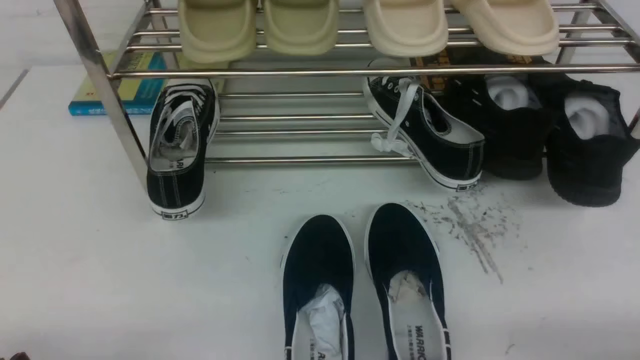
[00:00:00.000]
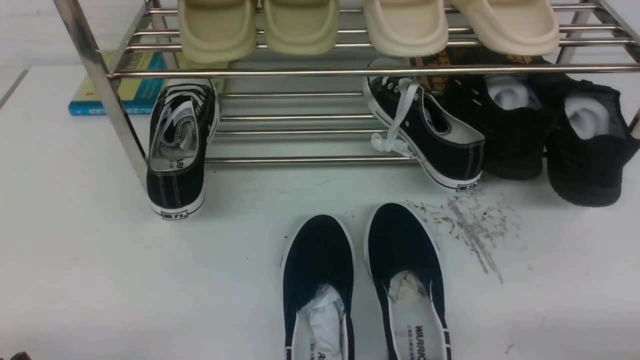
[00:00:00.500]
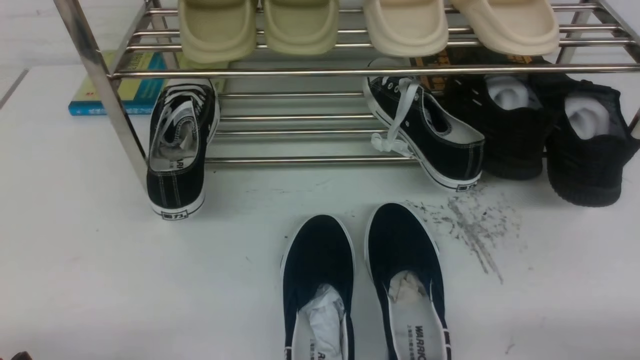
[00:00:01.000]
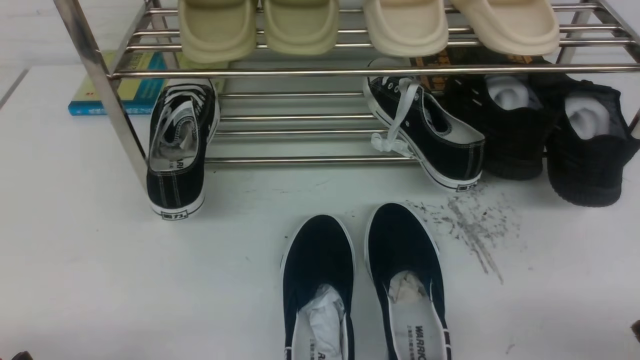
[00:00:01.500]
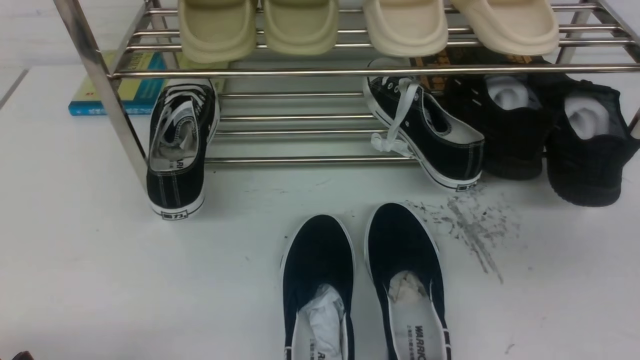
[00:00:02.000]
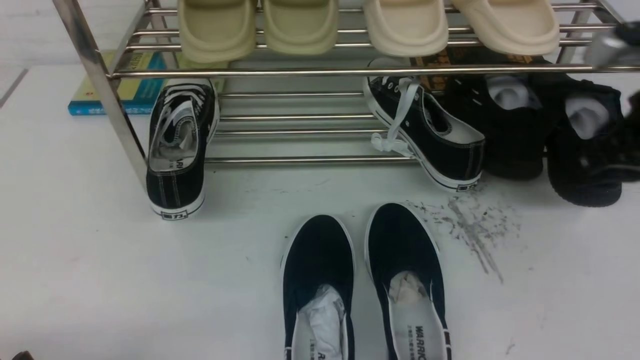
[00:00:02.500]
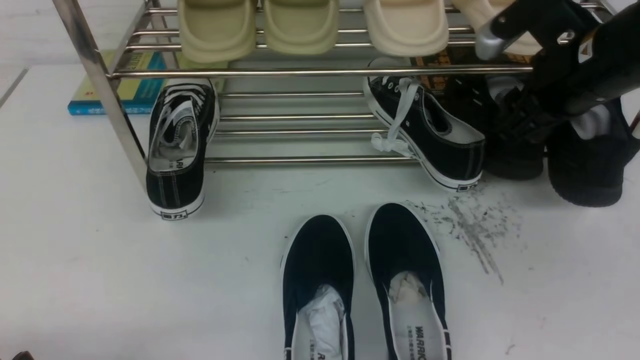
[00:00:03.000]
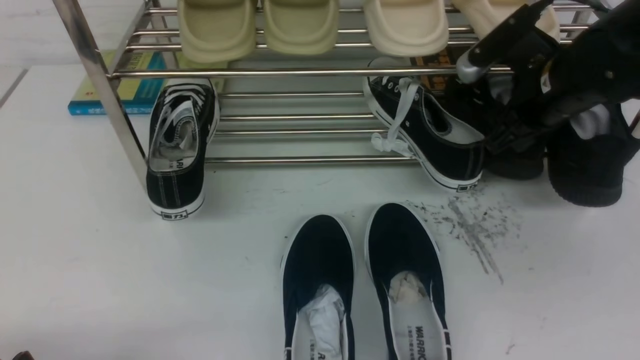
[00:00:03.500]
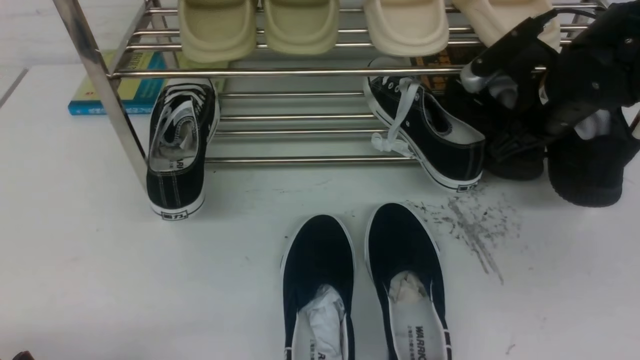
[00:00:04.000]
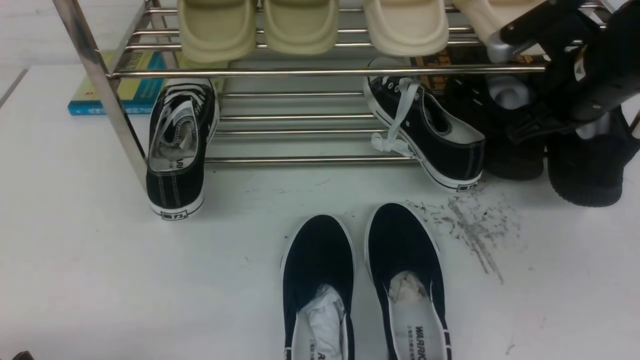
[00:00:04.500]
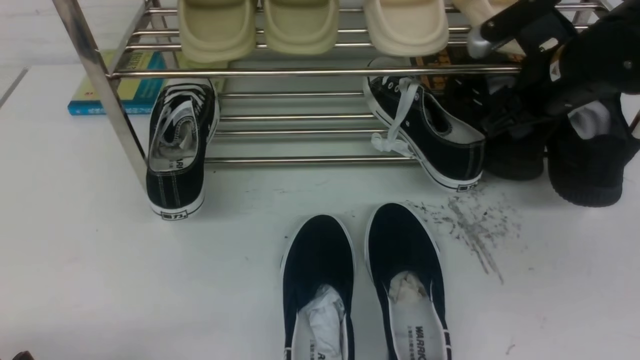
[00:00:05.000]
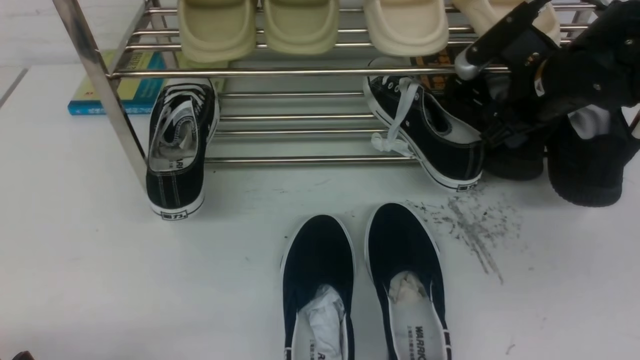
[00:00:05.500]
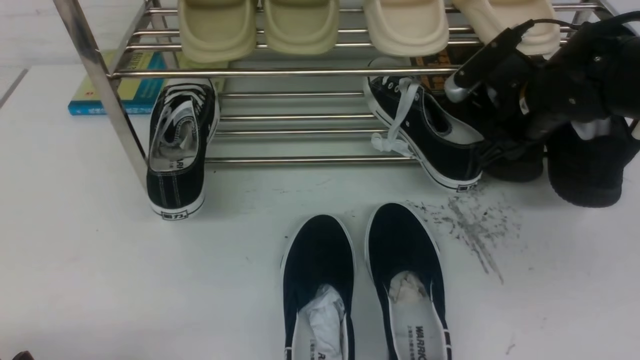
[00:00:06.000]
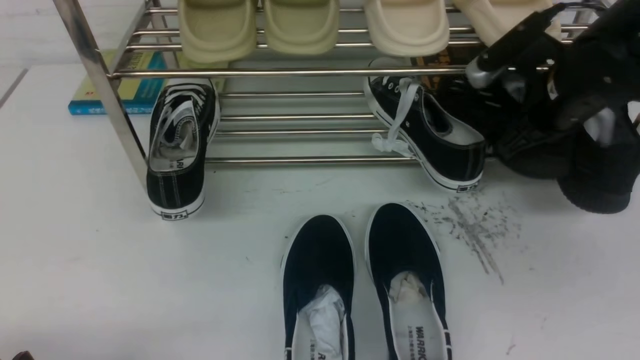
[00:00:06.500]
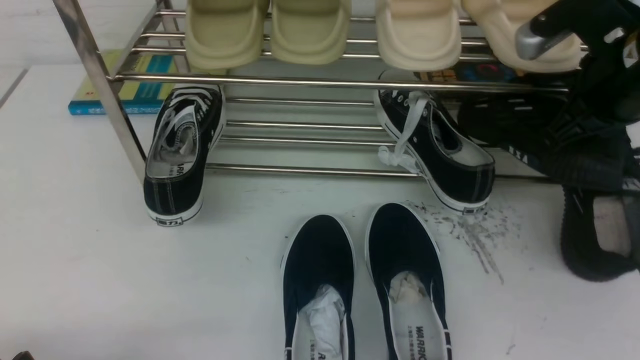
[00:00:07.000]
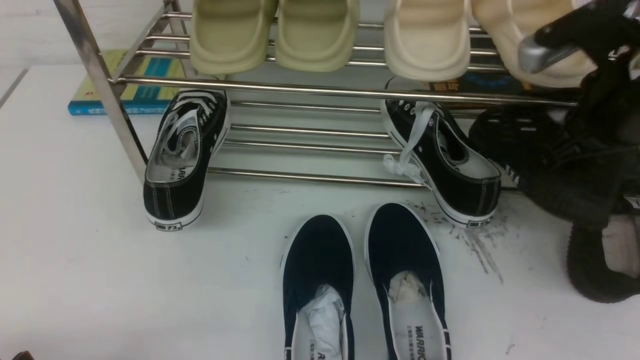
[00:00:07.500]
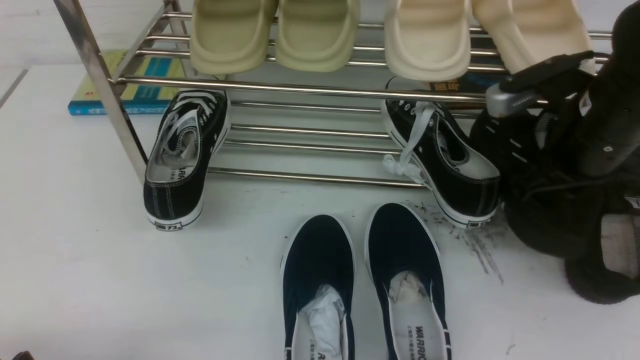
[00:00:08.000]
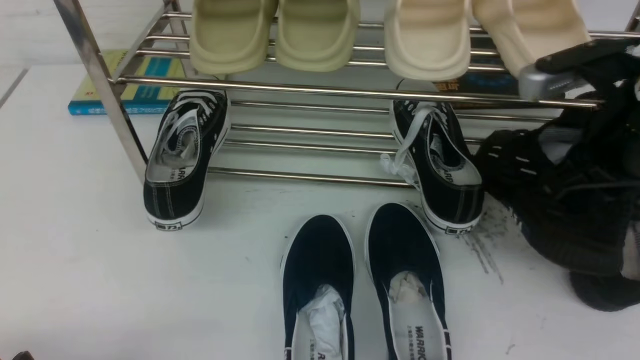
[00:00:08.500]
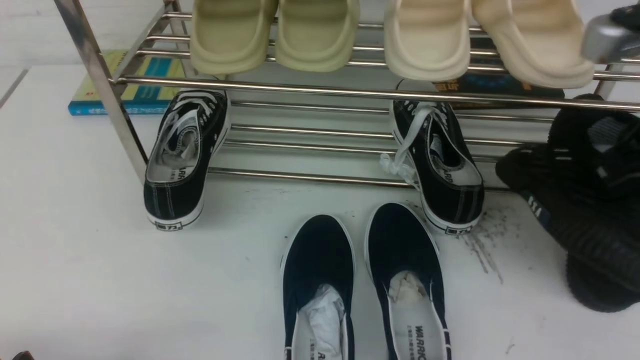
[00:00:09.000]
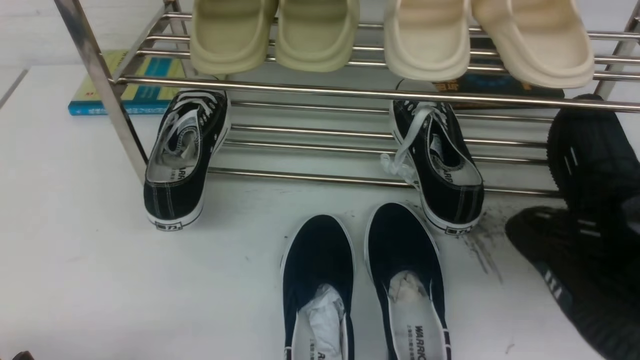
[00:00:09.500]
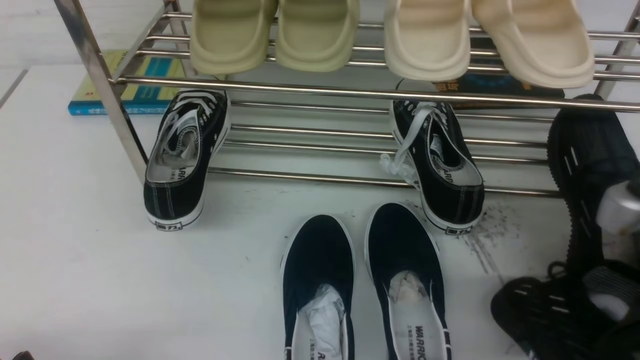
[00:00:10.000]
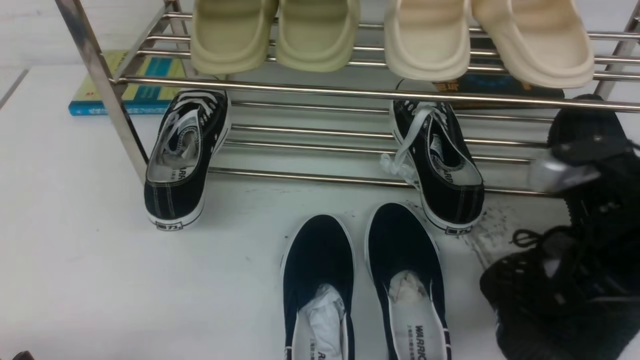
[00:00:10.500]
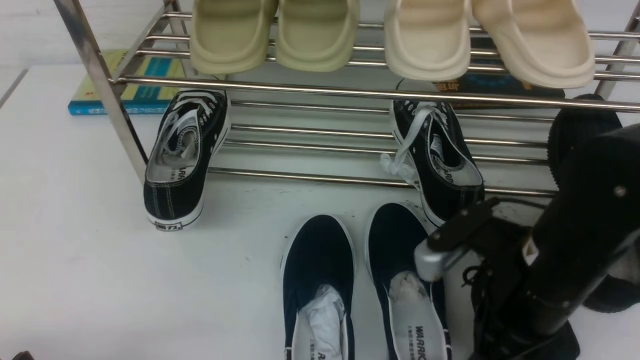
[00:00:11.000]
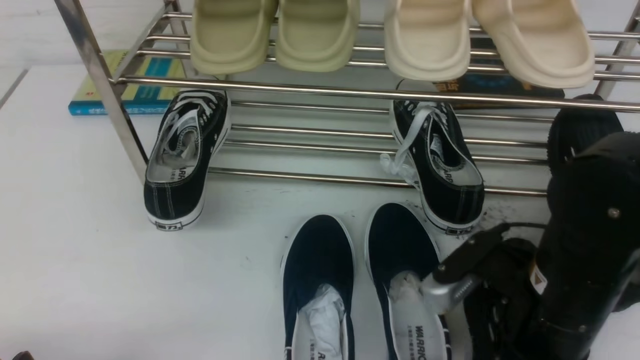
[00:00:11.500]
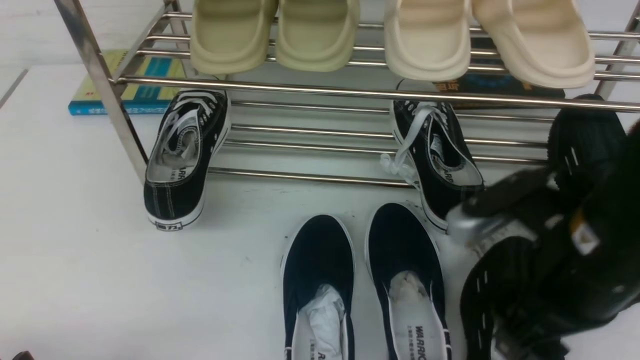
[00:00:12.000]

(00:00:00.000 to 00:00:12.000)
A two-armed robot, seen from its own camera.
Step, 00:00:00.000 - 00:00:06.500: use the right arm to clamp a shoe on the right side of the shoe rack.
00:00:00.000 - 00:00:02.000: The right gripper travels upward by approximately 15 cm, and closes.
00:00:02.000 - 00:00:04.000: The right gripper heads forward, covering about 25 cm, and opens and closes again.
00:00:04.000 - 00:00:06.000: The right gripper opens, then closes once more.
00:00:06.000 - 00:00:08.000: The right gripper shifts roughly 10 cm backward, and closes its fingers.
00:00:08.000 - 00:00:10.000: The right gripper travels backward by some 15 cm.
00:00:10.000 - 00:00:12.000: The right gripper travels to the left by approximately 5 cm, and opens.

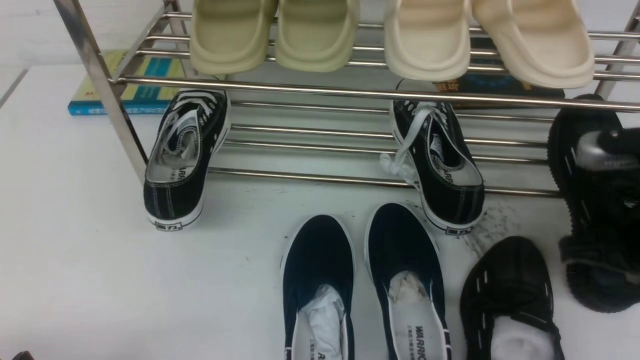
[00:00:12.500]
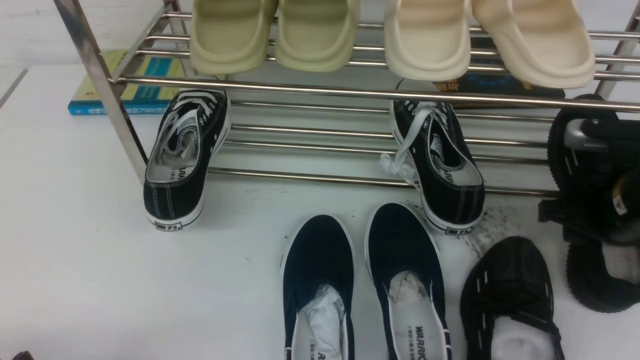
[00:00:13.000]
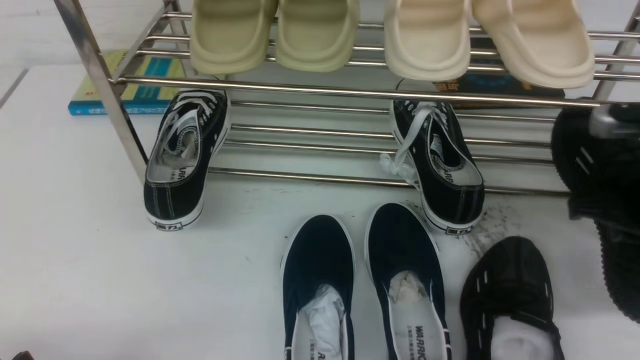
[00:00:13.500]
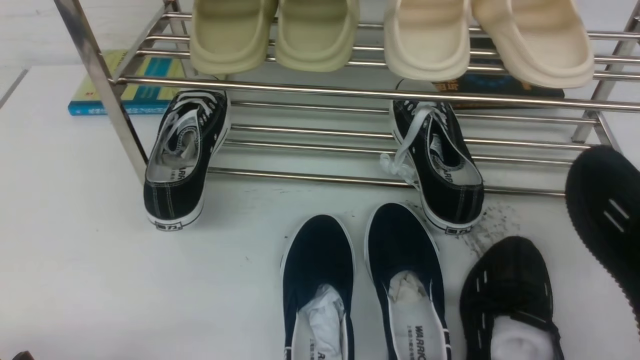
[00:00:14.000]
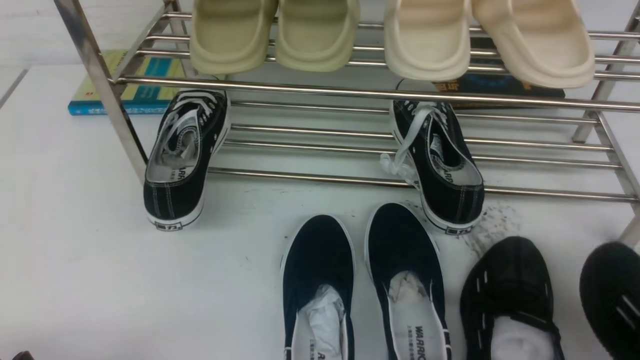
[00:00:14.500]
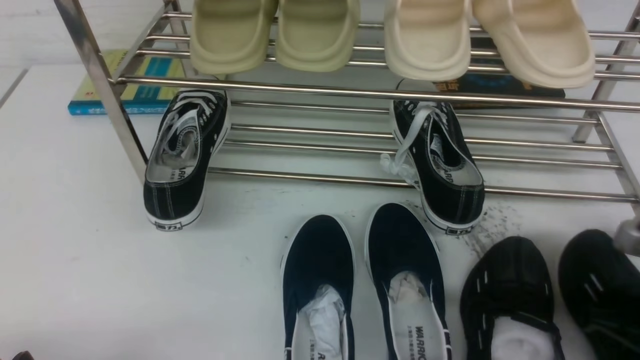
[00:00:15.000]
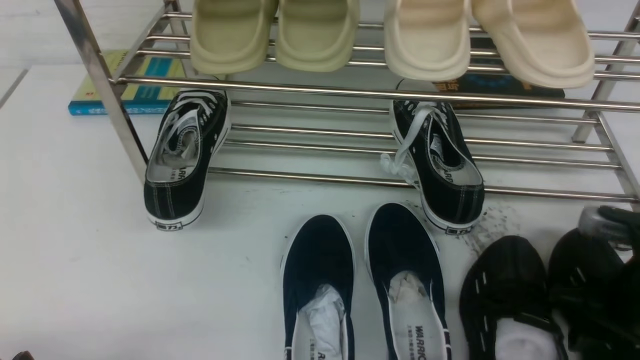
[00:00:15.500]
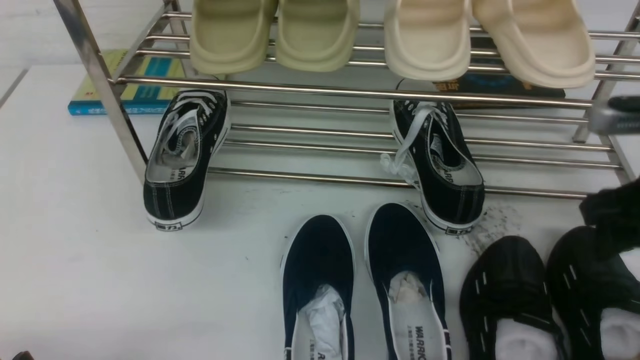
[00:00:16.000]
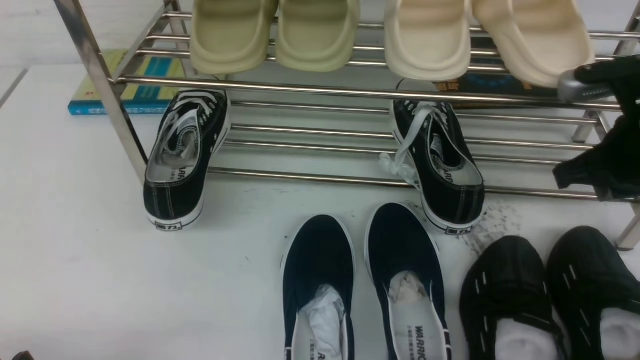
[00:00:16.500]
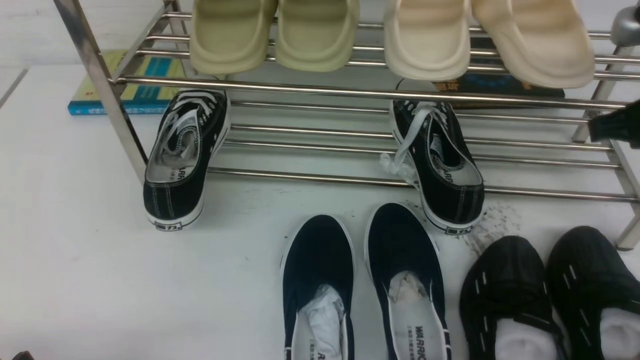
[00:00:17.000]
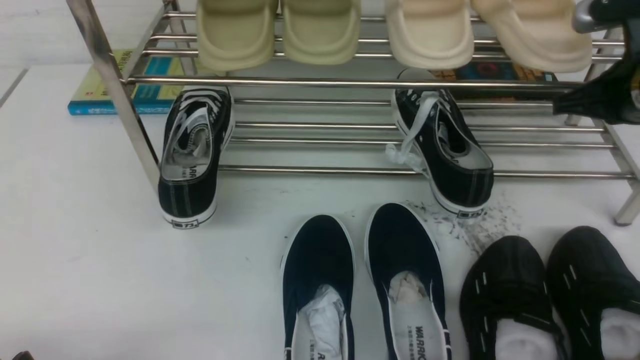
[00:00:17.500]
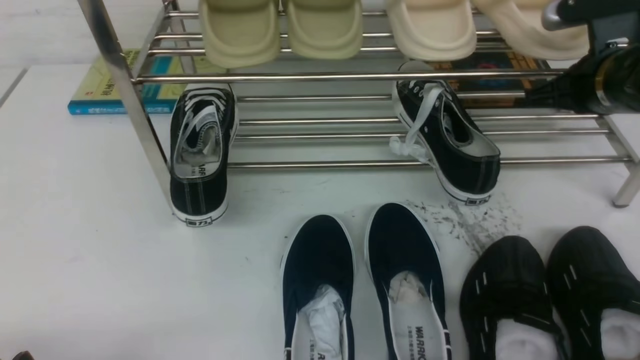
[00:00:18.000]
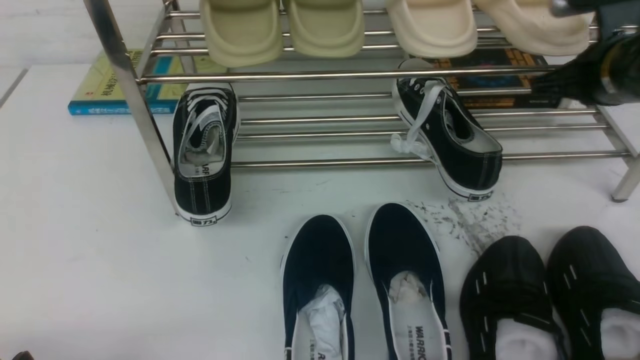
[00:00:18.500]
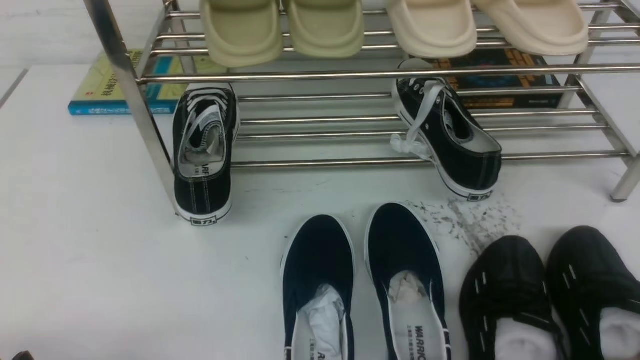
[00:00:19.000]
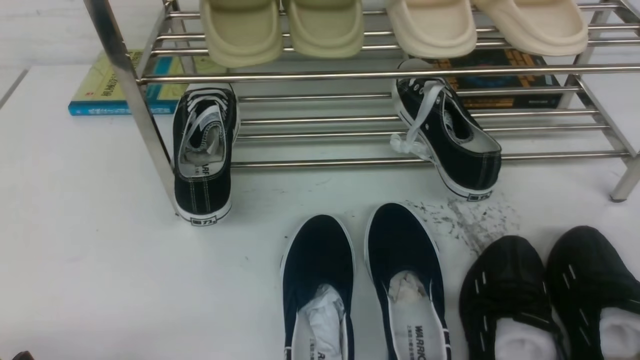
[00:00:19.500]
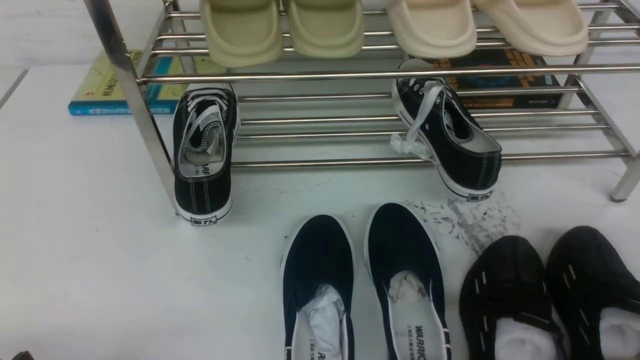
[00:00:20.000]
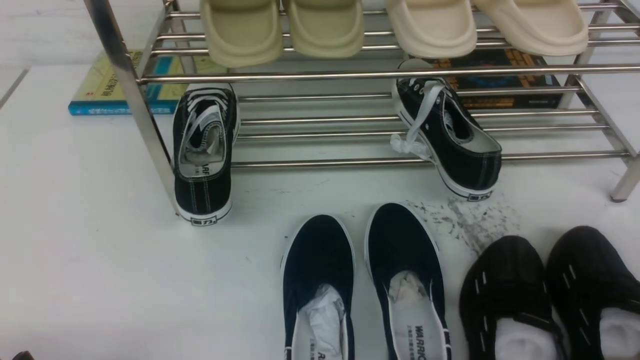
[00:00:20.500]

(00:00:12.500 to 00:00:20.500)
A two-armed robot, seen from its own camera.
Step, 00:00:12.500 - 00:00:13.500: use the right arm to clamp a shoe on the right side of the shoe rack.
Step, 00:00:14.000 - 00:00:16.000: use the right arm to take out the clamped shoe from the shoe rack and put it down.
00:00:12.500 - 00:00:14.500: The right gripper shifts roughly 10 cm backward, and closes.
00:00:14.500 - 00:00:16.500: The right gripper moves forward, some 15 cm, and opens and closes again.
00:00:16.500 - 00:00:18.500: The right gripper heads forward, covering approximately 5 cm.
00:00:18.500 - 00:00:20.500: The right gripper heads backward, covering about 25 cm.
